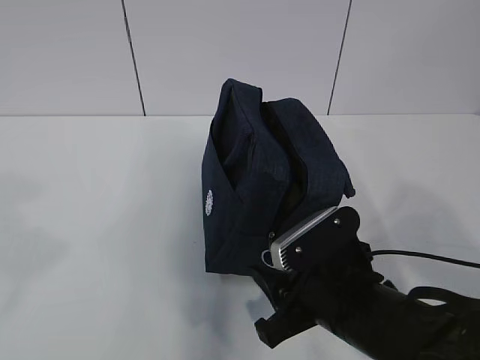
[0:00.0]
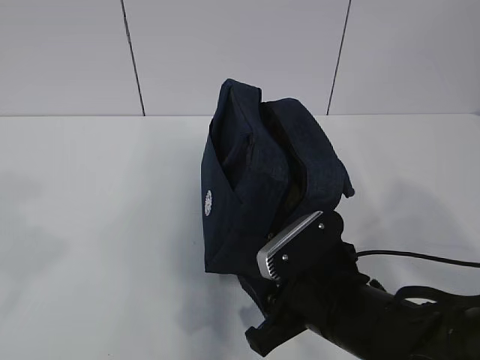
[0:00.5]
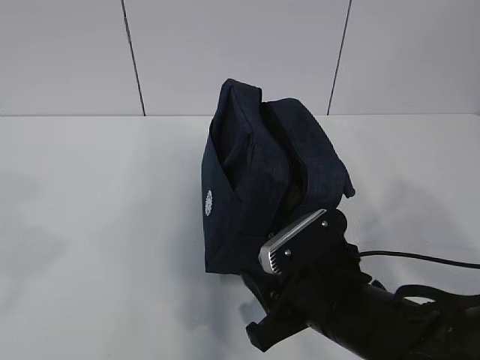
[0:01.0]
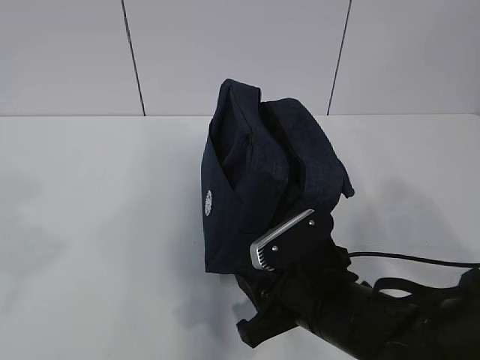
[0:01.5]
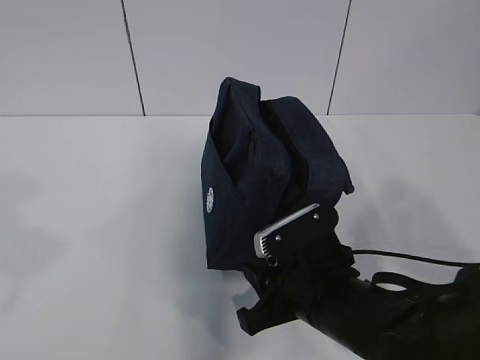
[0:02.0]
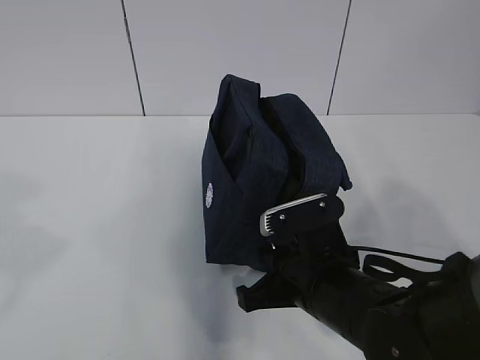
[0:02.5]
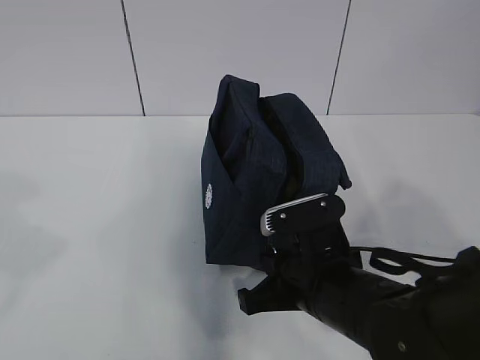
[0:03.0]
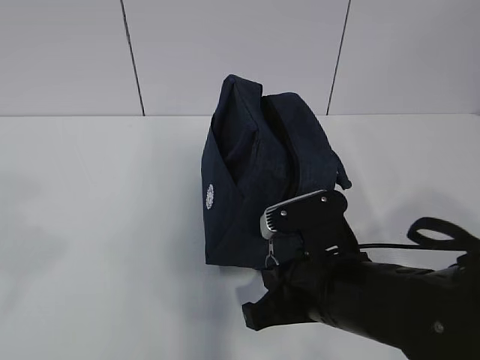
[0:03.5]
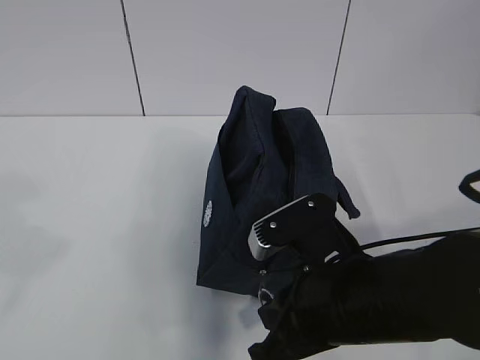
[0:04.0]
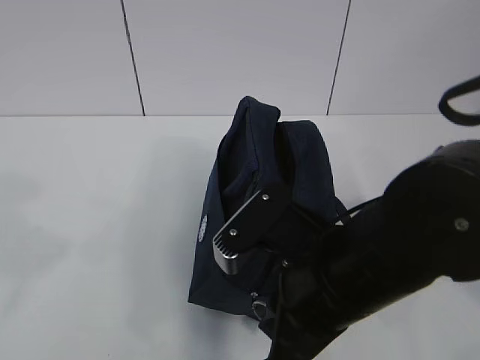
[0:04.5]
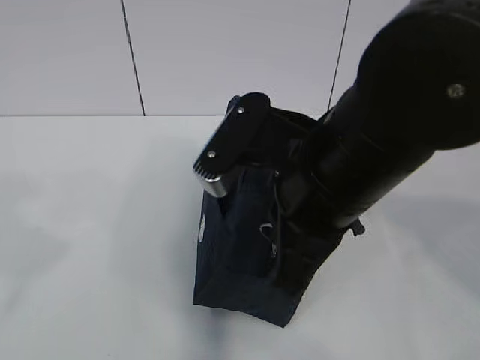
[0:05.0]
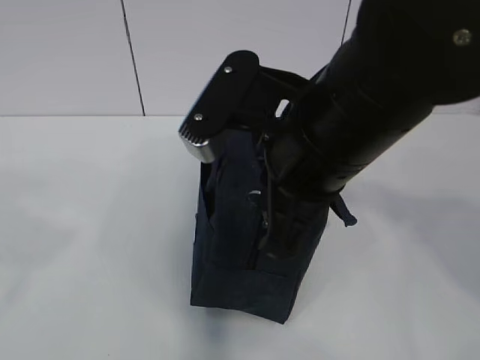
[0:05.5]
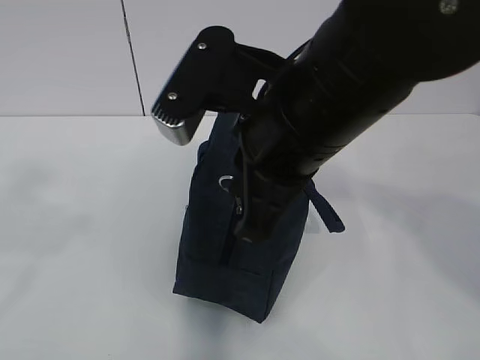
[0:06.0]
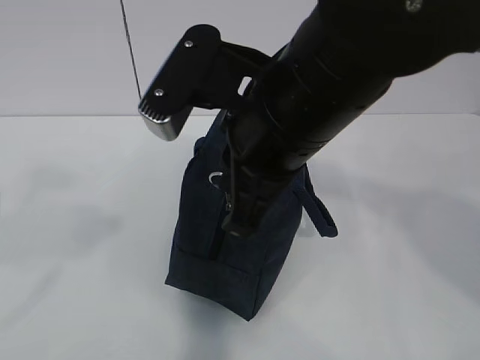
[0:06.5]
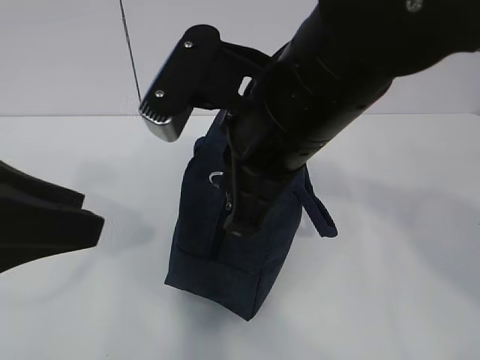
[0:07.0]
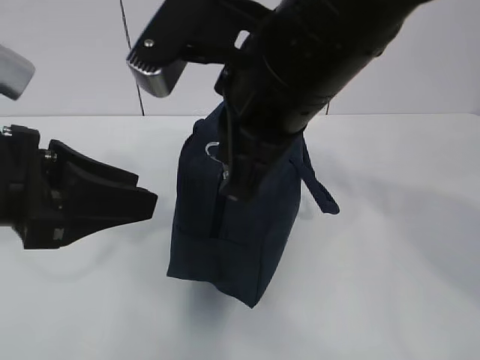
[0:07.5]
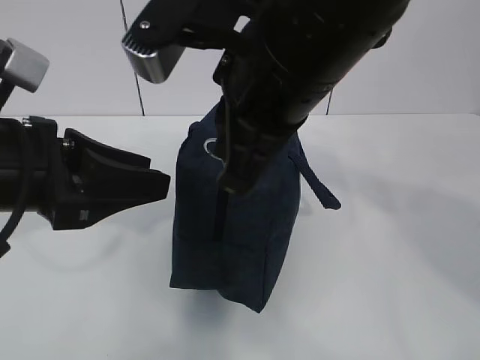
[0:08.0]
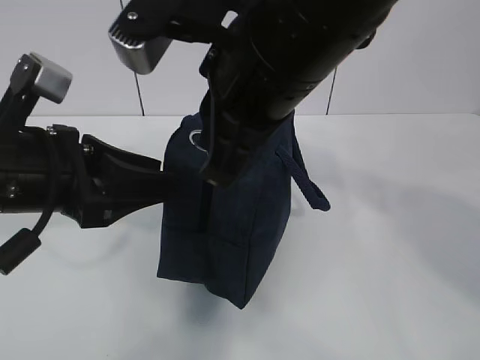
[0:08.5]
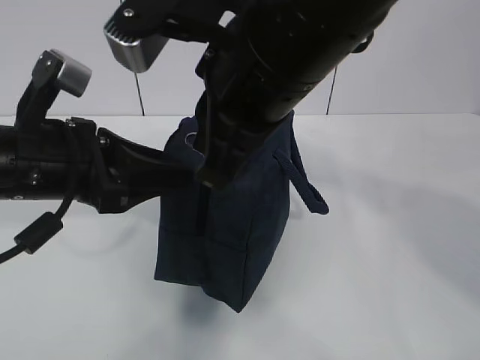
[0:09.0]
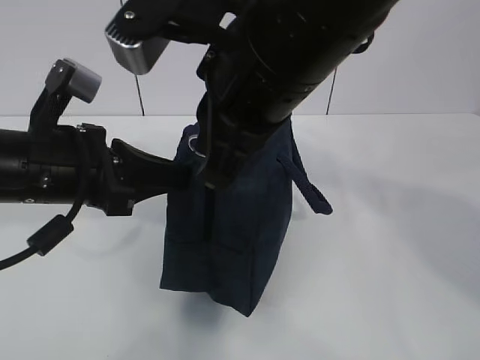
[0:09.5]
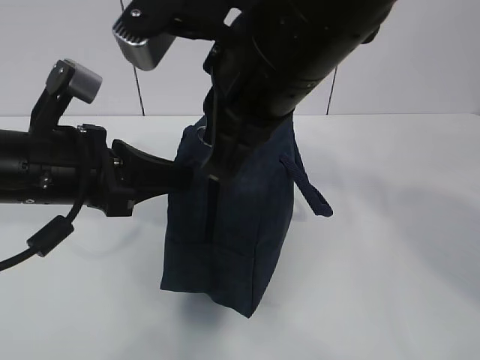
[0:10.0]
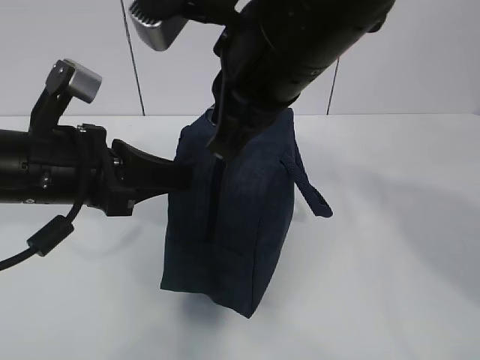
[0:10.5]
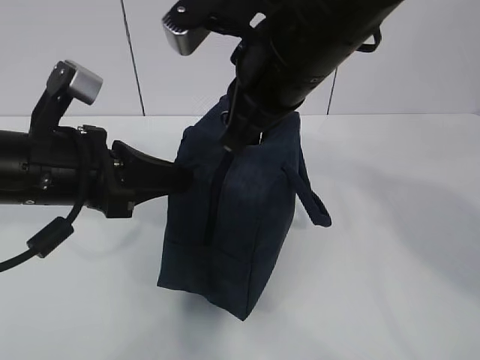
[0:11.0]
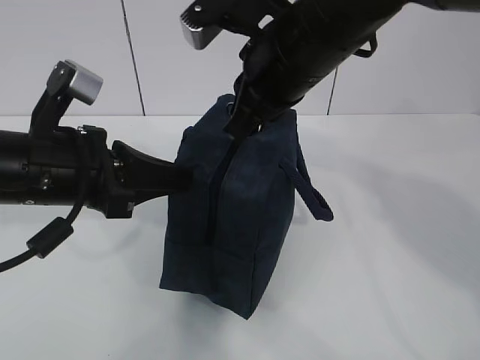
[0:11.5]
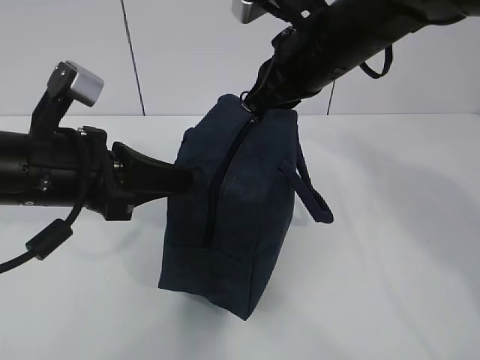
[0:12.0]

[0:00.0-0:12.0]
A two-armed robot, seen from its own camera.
Step, 0:00.0 to 0:02.0: Pull the zipper with your right hand.
0:00.0 to 0:02.0: The grippers stay close to where they were, moving slightly.
0:02.0 to 0:04.0: The right gripper is displaced upward by about 5 cm, and closes its fingers.
0:04.0 to 0:06.0: The right gripper is displaced upward by roughly 15 cm.
0:06.0 to 0:08.0: The left gripper heads forward, downward and to the right, covering roughly 20 cm.
0:08.0 to 0:10.0: The left gripper ends up roughly 5 cm from where it was, and closes its fingers.
0:10.0 to 0:12.0: The right gripper is displaced forward and to the right by some 15 cm.

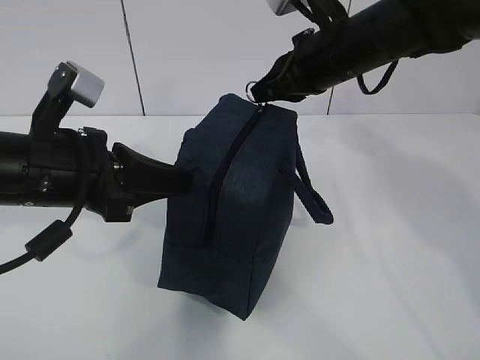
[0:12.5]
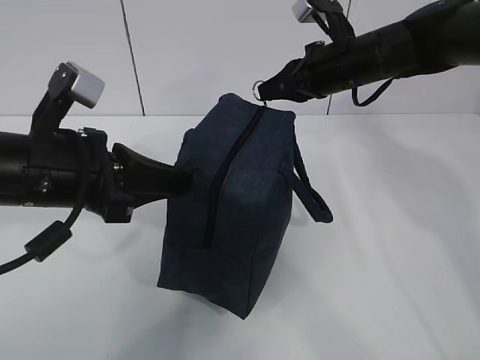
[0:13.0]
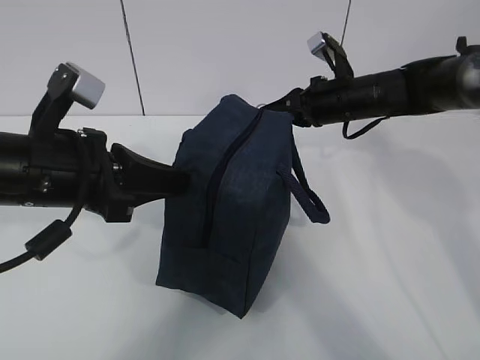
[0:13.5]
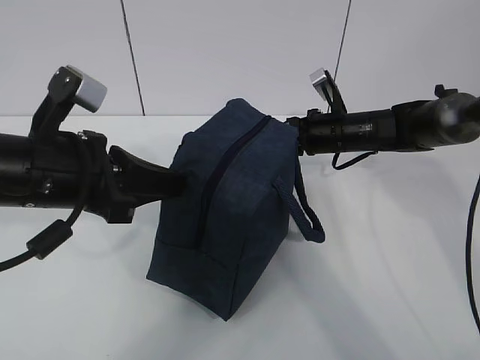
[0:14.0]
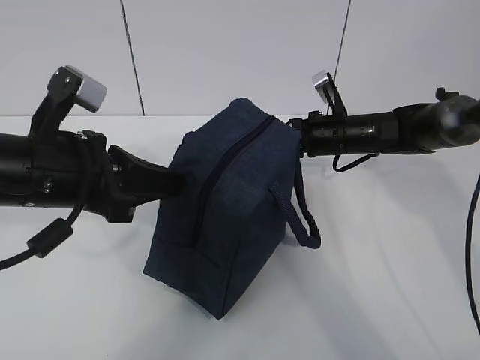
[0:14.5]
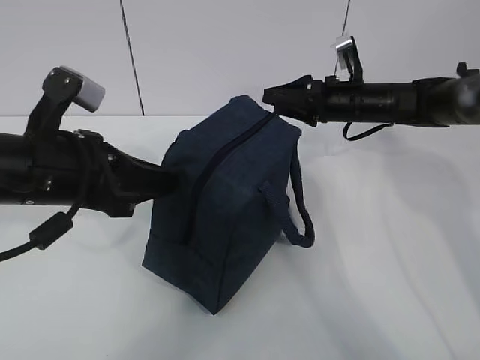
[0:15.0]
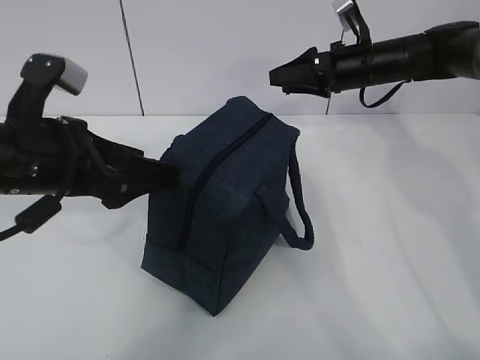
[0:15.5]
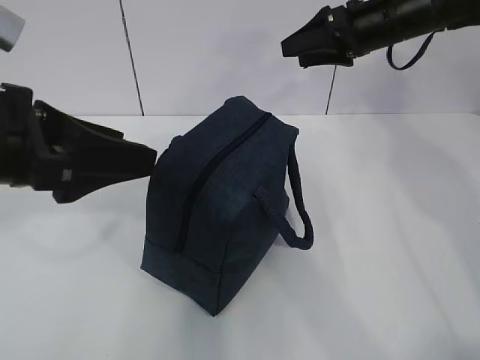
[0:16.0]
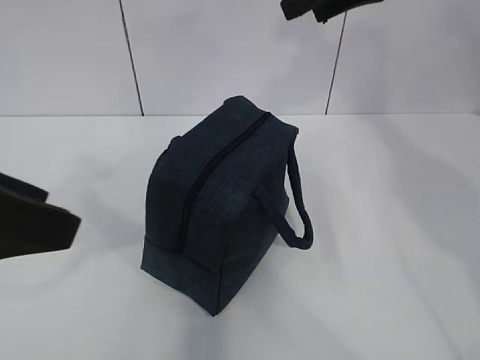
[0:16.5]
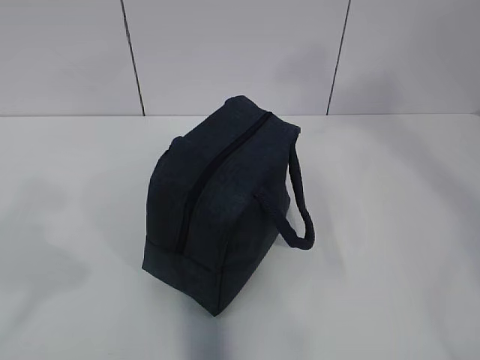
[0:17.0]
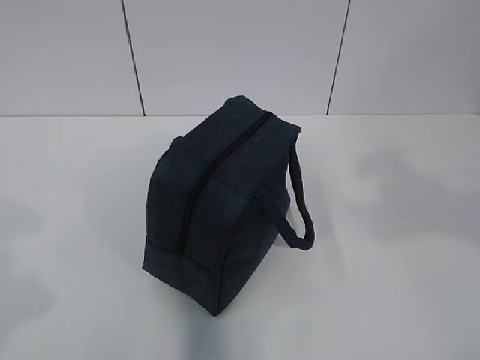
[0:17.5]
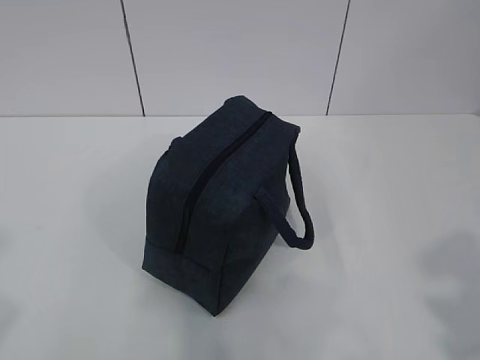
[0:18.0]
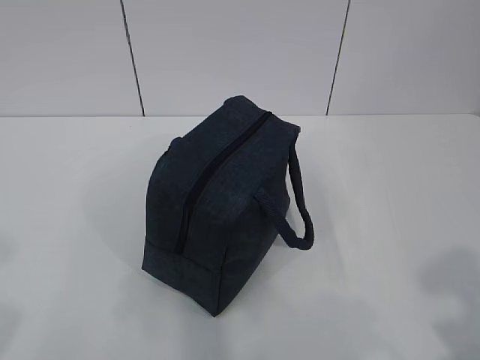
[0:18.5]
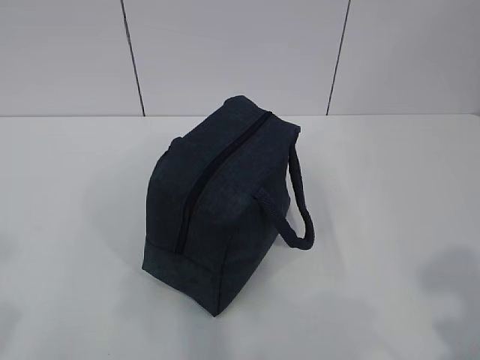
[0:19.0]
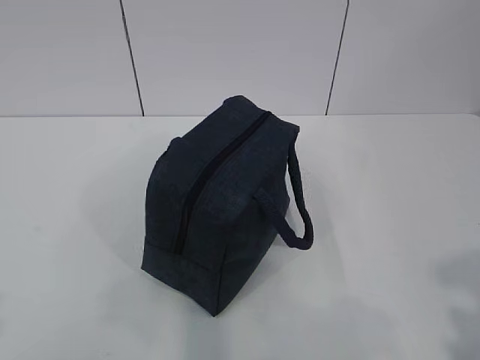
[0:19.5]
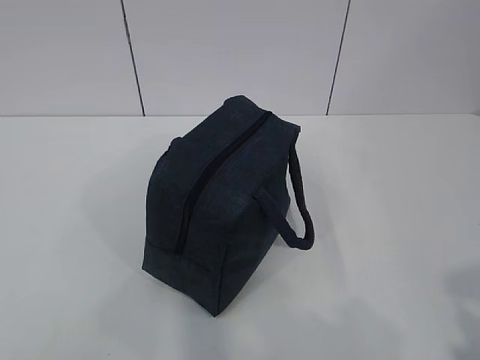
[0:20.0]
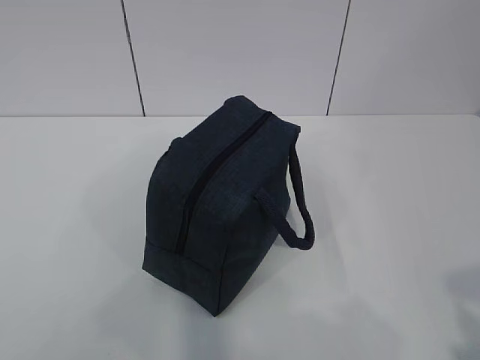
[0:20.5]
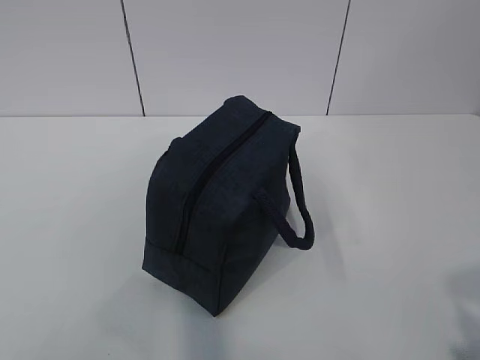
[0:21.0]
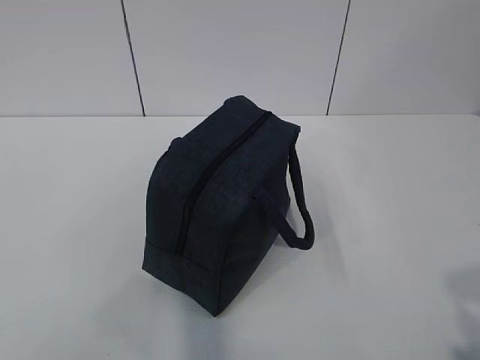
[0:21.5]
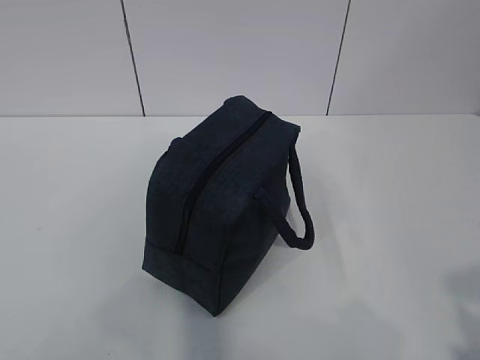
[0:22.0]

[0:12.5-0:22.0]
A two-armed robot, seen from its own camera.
0:12.5 to 0:14.5: The right gripper goes about 15 cm downward and forward.
0:14.5 to 0:16.5: The right gripper goes roughly 30 cm upward, and opens its fingers, while the left gripper heads backward, upward and to the left, covering approximately 15 cm, and opens its fingers.
0:16.5 to 0:18.0: The right gripper goes approximately 40 cm backward. Meanwhile the left gripper travels backward and to the left by some 15 cm.
0:20.0 to 0:22.0: Both grippers stay about where they are.

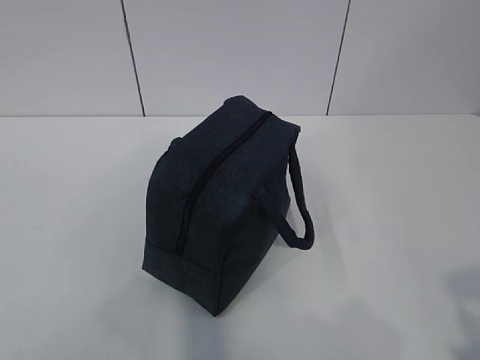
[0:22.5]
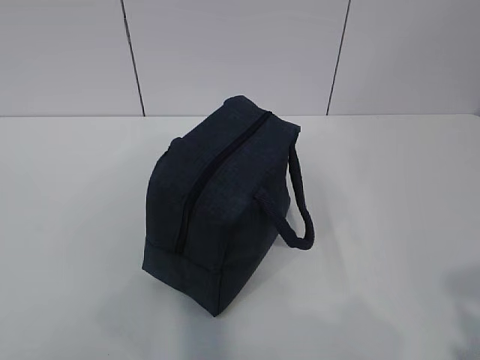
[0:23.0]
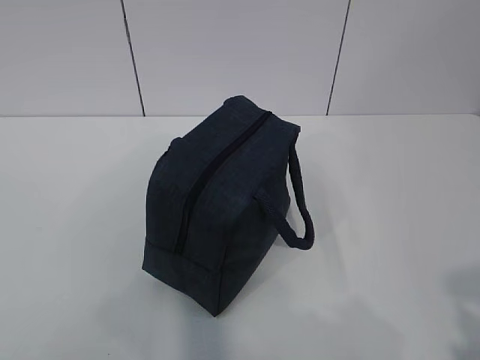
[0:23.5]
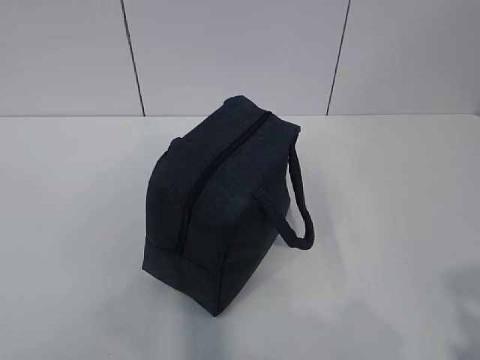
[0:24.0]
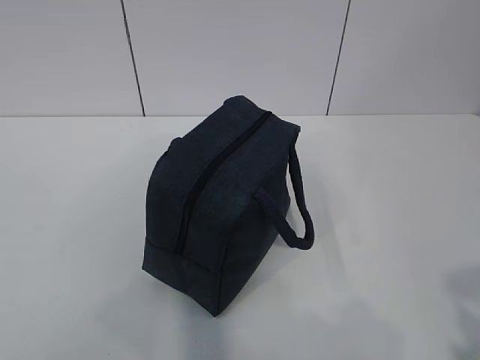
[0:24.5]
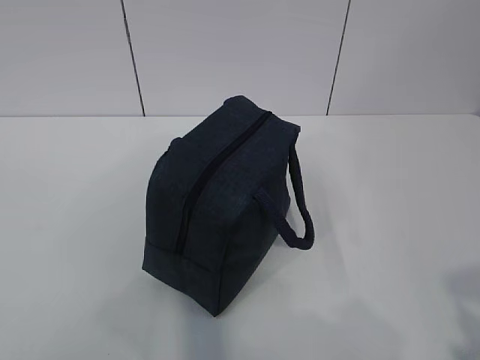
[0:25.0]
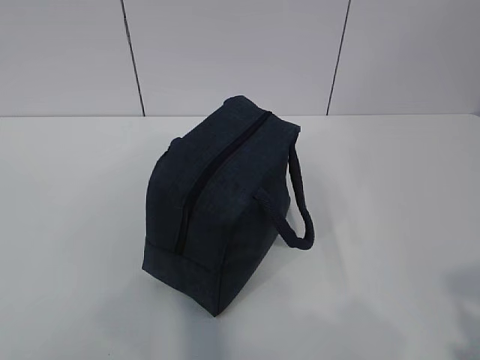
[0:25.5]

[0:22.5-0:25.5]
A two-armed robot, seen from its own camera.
0:22.5 to 0:25.5: Both grippers stay put.
